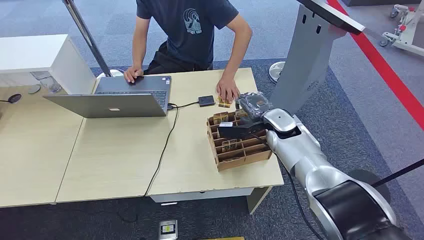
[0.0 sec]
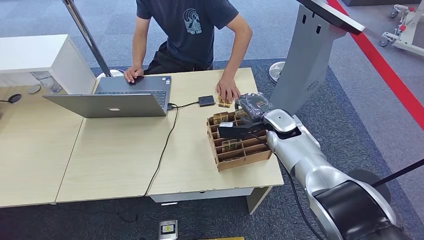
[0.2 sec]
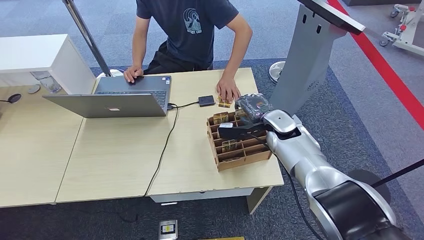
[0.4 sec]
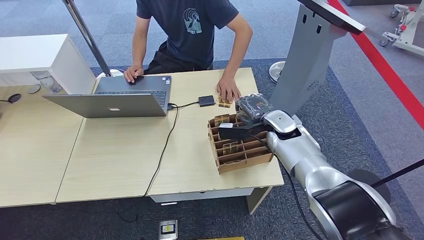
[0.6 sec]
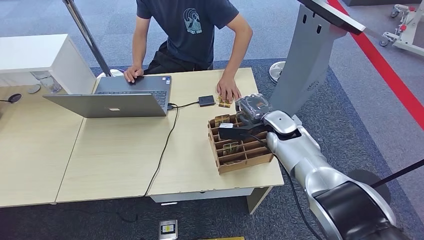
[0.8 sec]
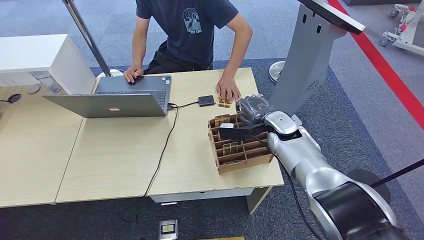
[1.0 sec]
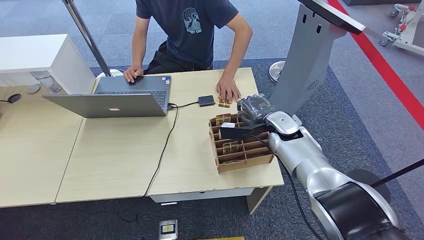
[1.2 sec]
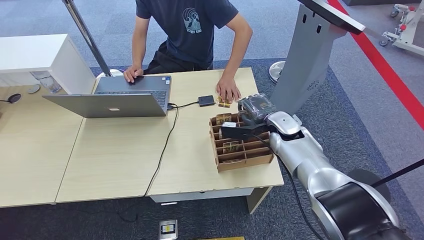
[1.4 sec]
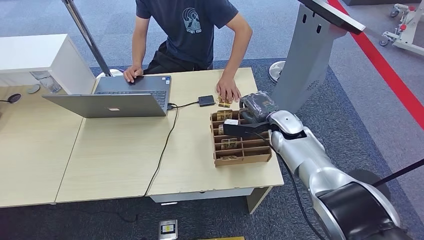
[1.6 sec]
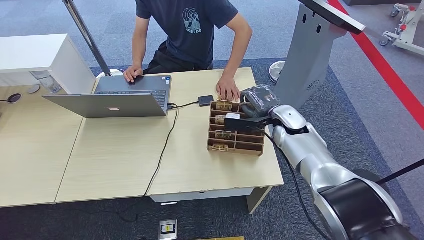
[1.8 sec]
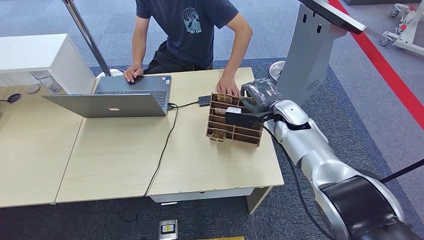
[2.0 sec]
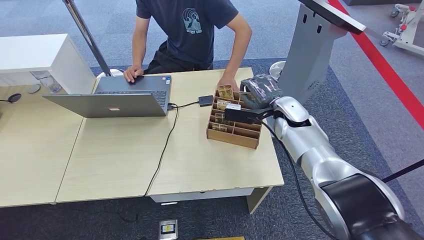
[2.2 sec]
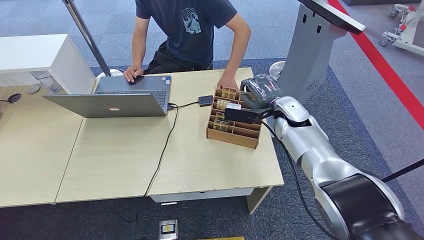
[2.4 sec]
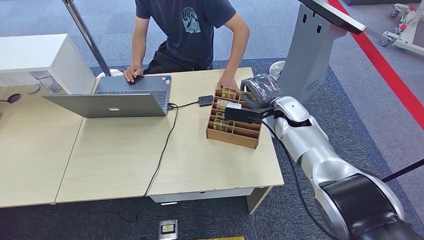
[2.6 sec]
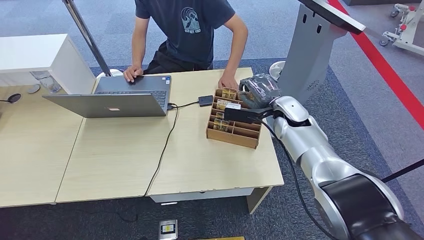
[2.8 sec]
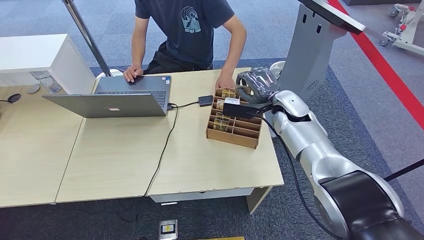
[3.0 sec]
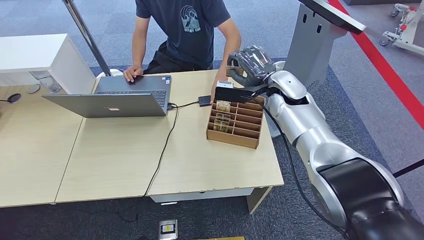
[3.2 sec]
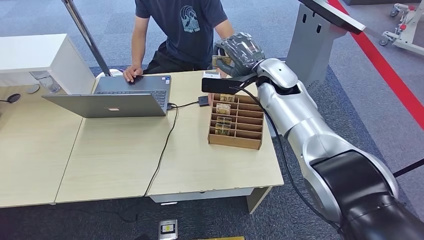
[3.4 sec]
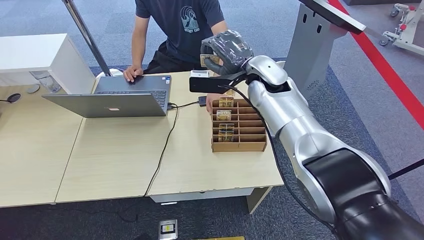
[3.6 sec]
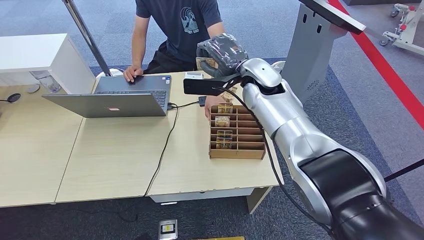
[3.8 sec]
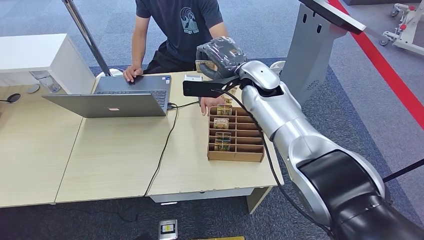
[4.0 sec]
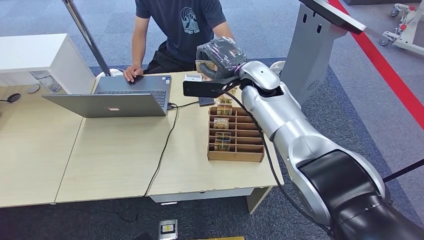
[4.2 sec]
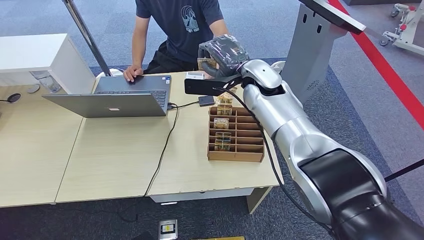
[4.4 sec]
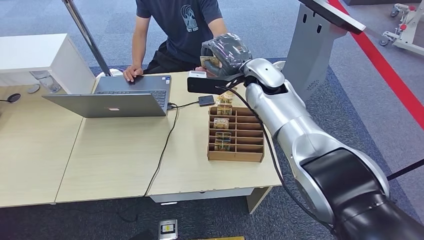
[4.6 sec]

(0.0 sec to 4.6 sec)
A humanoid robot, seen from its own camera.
Step, 0.0 sec - 2.4 sec: Pick up the room card from the card holder.
Step, 2.6 sec - 4.6 sec: Hand the room card to the target.
1.6 sec - 3.0 sec: The right hand moves upward, some 5 cm.
3.0 sec - 4.6 sec: The right hand moves upward and to the left, about 15 cm.
